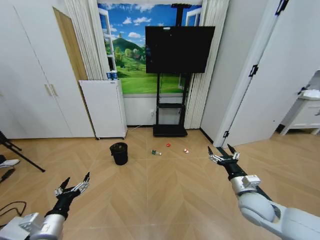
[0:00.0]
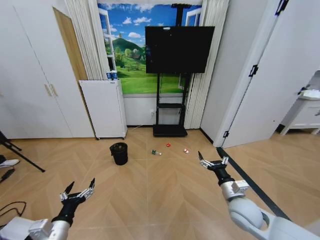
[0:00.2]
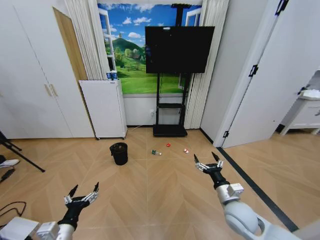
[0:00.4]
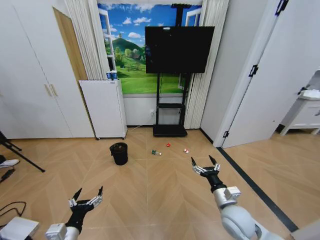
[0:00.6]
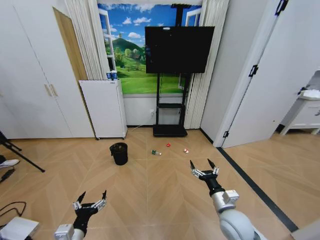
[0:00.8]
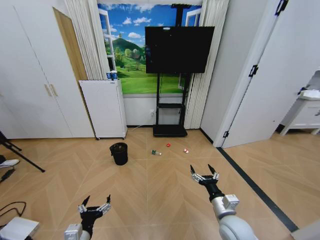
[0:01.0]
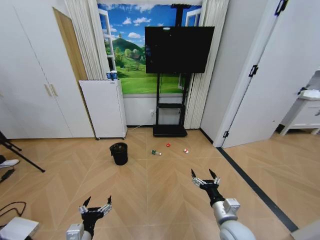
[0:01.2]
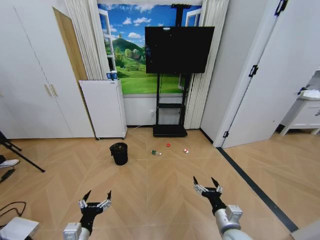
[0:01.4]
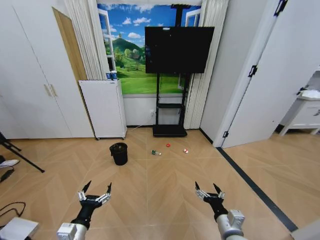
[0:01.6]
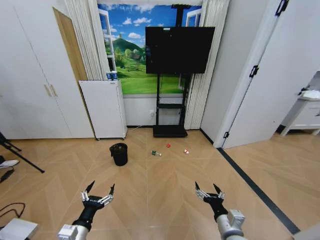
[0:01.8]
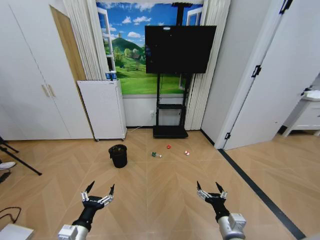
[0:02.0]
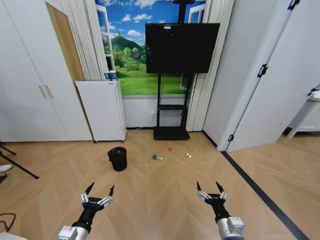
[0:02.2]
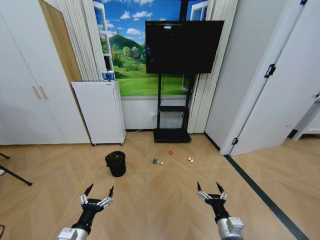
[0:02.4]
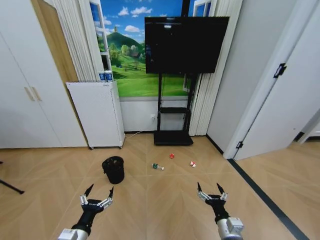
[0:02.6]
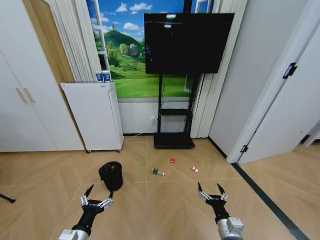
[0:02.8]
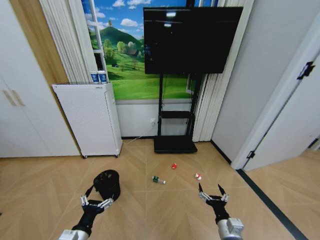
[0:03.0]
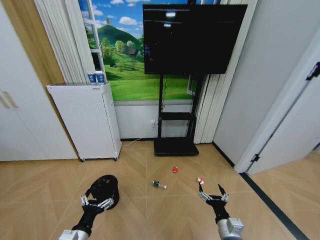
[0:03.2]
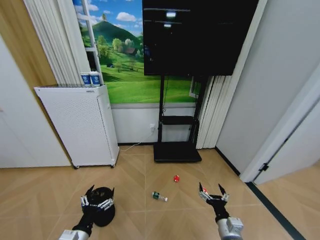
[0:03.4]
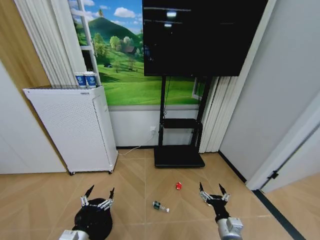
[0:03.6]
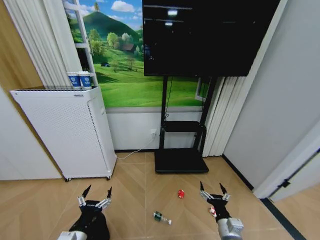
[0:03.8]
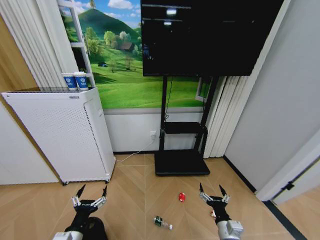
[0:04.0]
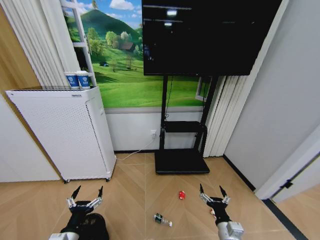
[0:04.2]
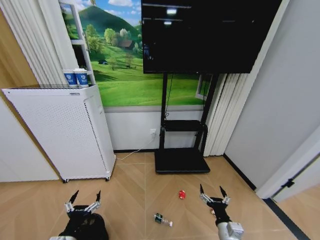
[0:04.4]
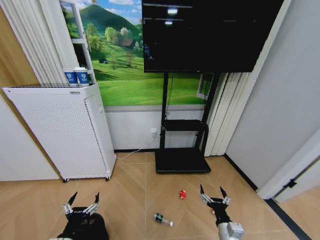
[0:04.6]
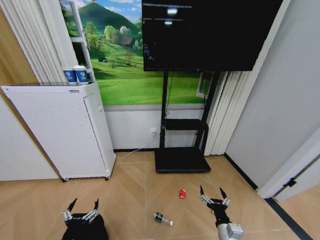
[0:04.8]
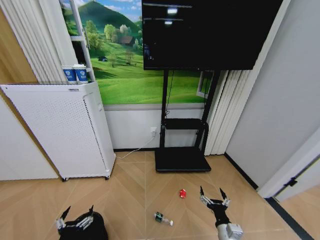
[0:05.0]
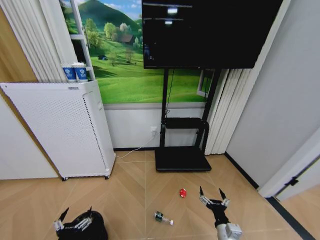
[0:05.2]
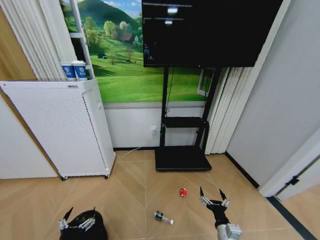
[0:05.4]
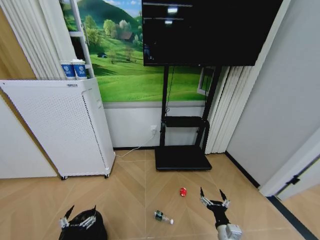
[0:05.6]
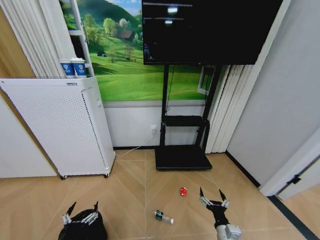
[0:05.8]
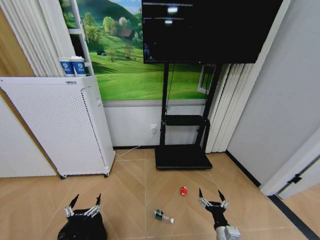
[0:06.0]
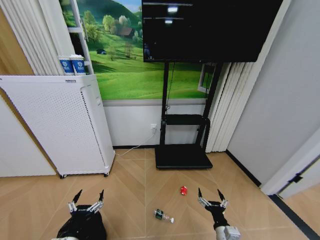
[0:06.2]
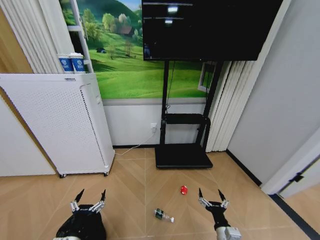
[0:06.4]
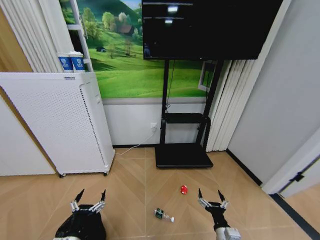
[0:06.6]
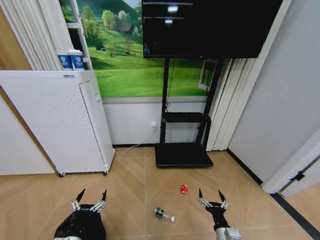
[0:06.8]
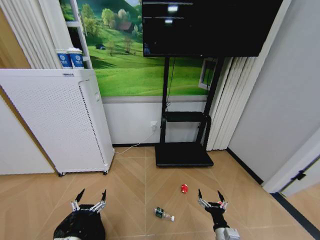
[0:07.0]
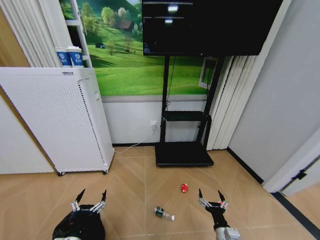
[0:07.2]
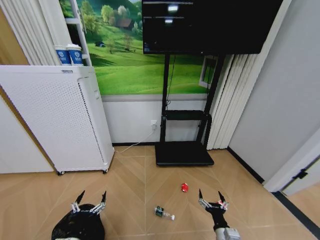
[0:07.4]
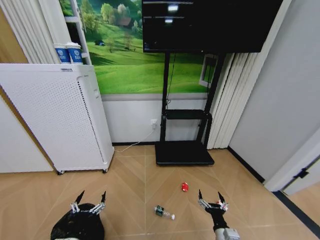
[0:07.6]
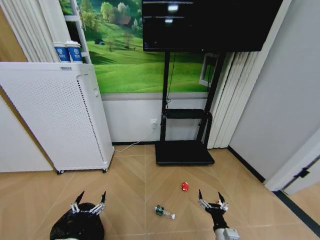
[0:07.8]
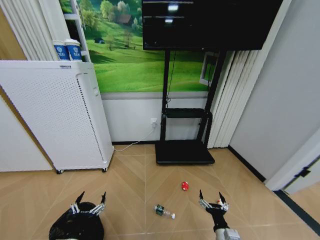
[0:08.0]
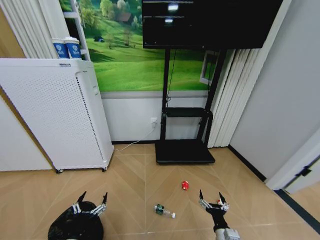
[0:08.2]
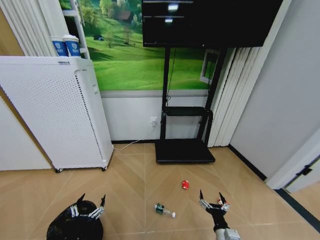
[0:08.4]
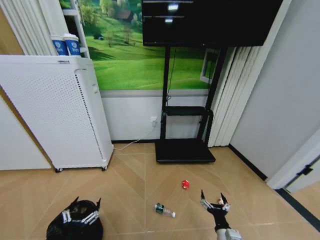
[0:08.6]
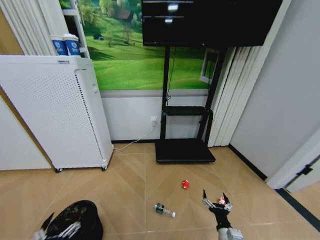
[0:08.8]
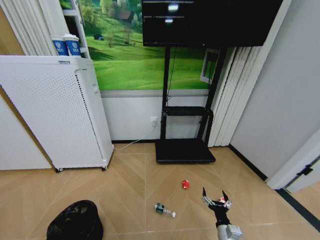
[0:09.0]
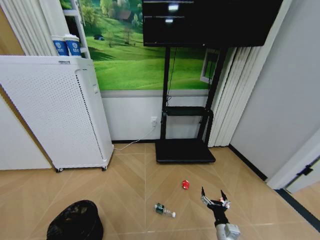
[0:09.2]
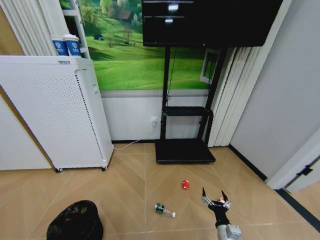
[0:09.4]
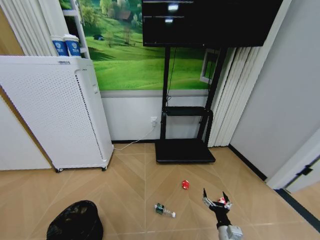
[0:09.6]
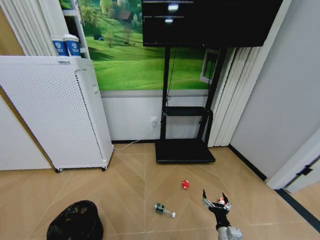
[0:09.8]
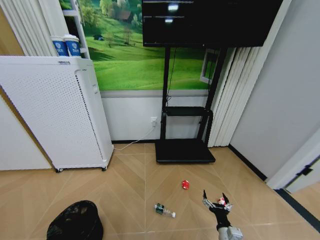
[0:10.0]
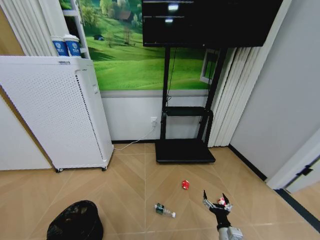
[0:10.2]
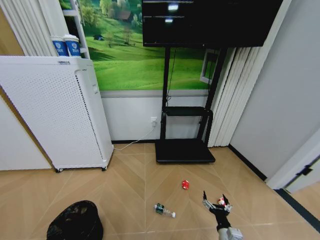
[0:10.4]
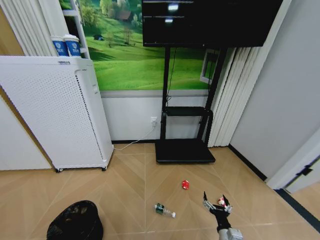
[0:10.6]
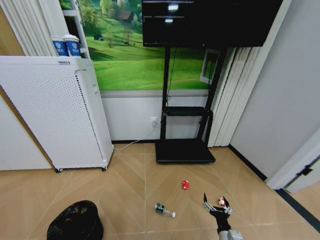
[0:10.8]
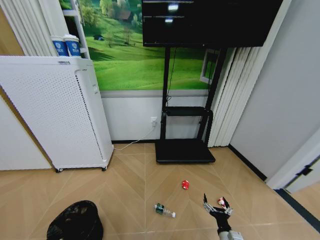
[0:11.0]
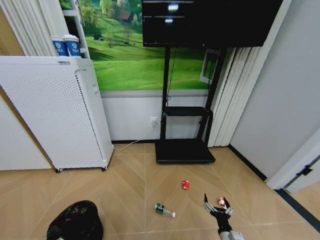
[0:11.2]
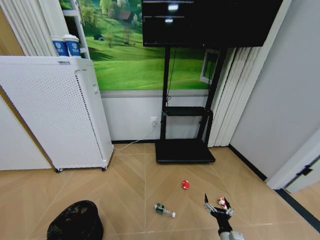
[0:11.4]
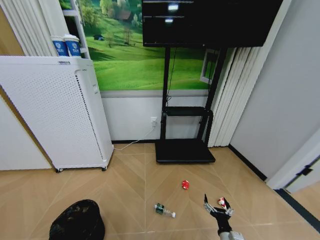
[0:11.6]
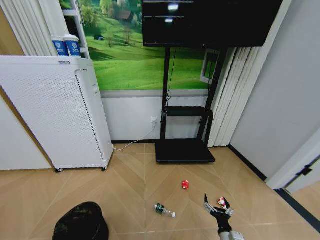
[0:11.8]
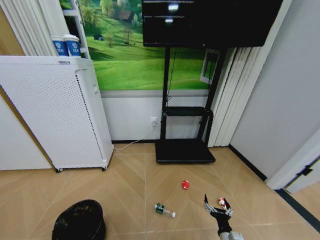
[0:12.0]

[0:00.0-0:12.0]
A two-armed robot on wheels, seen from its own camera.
Task of the whole recording: Pick up the trash bin and place the garbage on the floor into it.
0:06.0 to 0:07.6: There are only small adjustments of the grippers.
0:07.6 to 0:09.0: The left gripper heads backward and to the left, covering some 15 cm.
0:10.4 to 0:12.0: The left gripper closes its fingers.

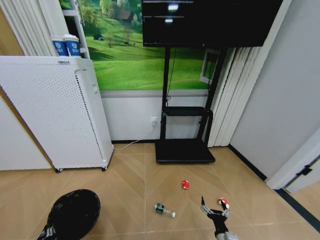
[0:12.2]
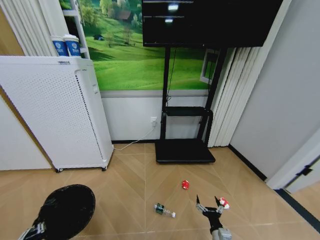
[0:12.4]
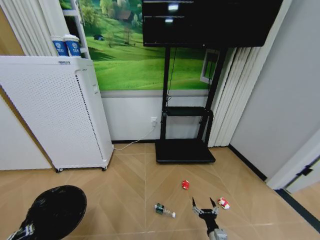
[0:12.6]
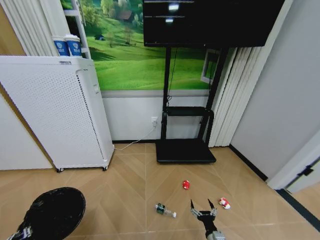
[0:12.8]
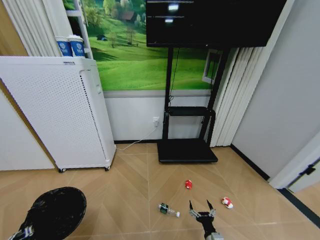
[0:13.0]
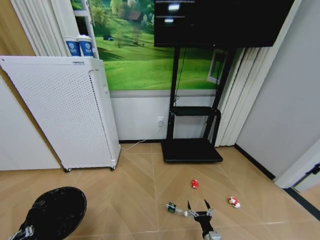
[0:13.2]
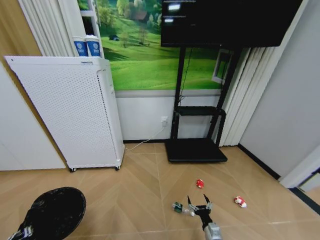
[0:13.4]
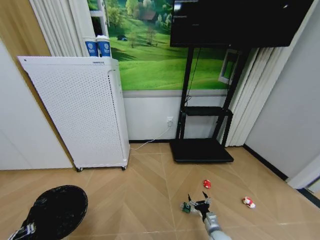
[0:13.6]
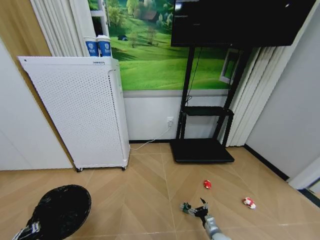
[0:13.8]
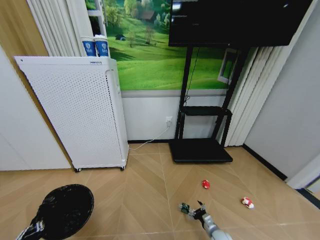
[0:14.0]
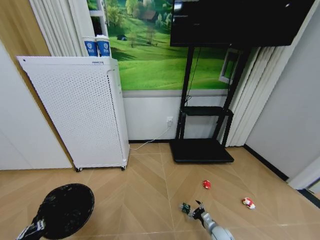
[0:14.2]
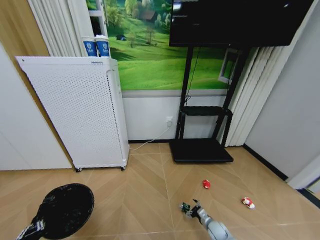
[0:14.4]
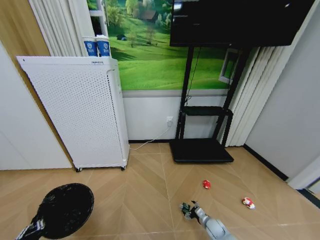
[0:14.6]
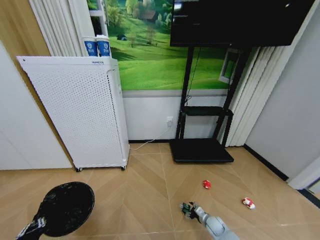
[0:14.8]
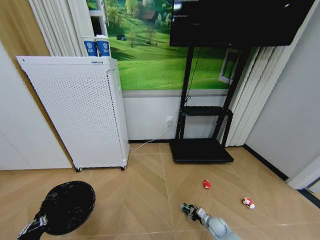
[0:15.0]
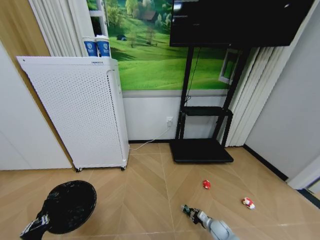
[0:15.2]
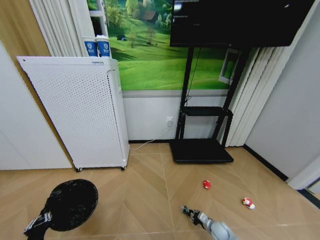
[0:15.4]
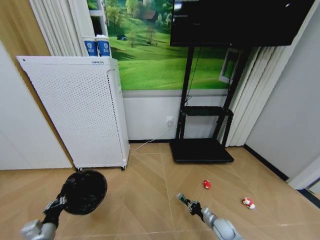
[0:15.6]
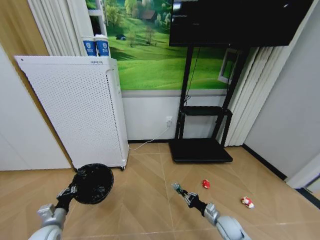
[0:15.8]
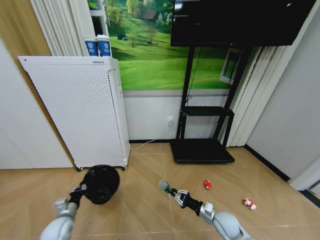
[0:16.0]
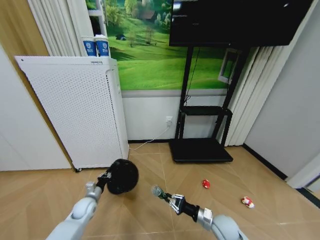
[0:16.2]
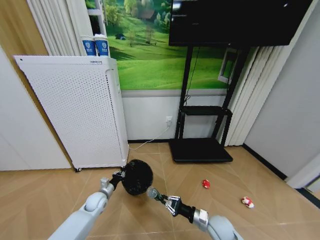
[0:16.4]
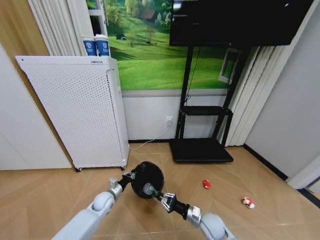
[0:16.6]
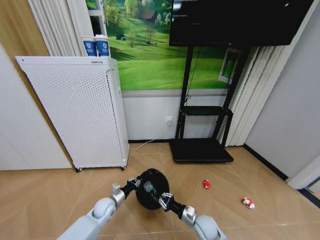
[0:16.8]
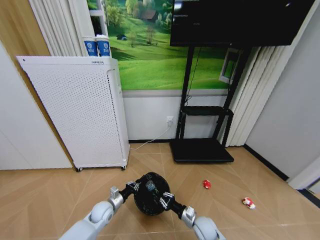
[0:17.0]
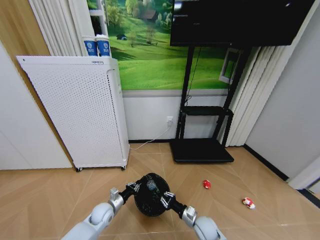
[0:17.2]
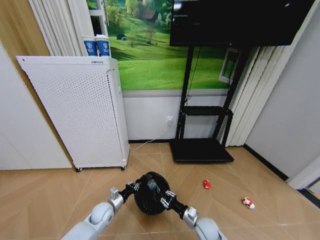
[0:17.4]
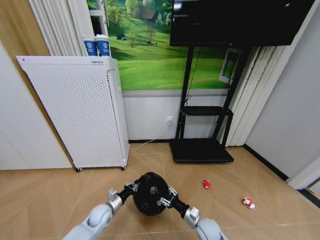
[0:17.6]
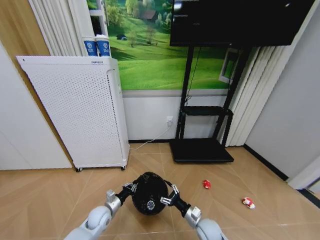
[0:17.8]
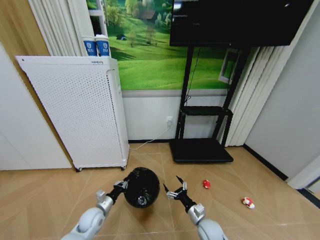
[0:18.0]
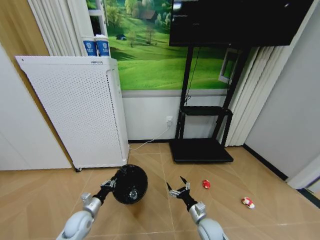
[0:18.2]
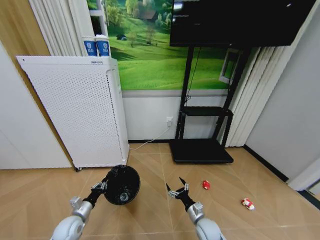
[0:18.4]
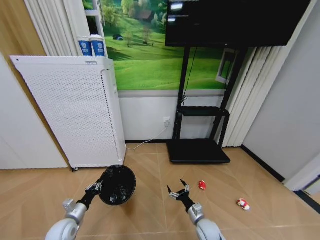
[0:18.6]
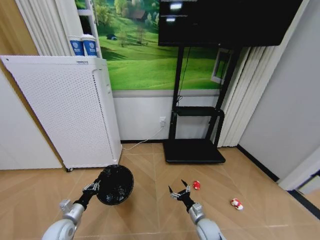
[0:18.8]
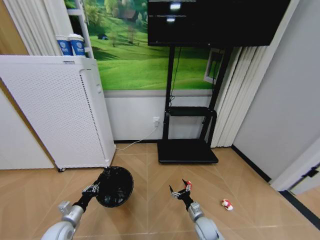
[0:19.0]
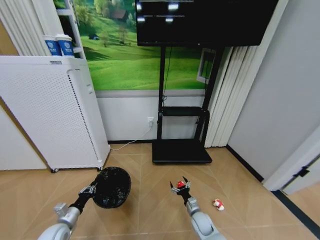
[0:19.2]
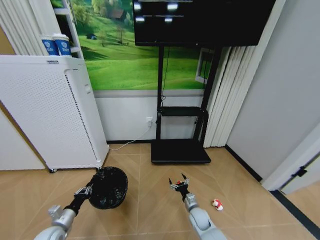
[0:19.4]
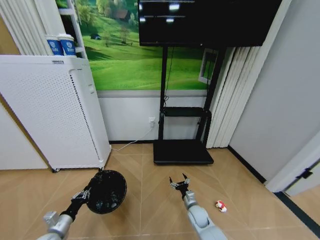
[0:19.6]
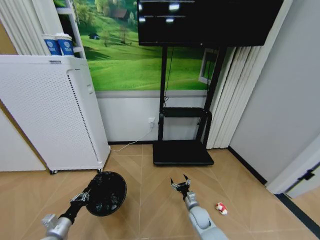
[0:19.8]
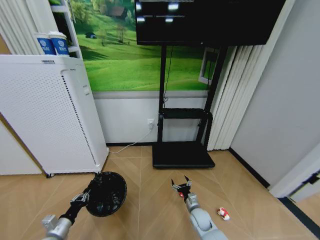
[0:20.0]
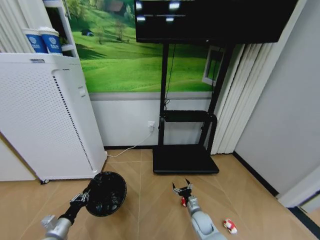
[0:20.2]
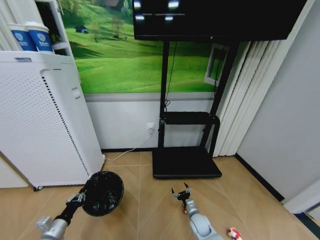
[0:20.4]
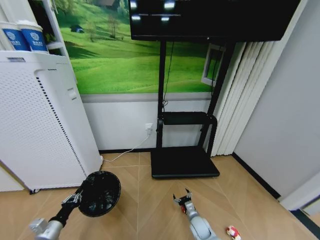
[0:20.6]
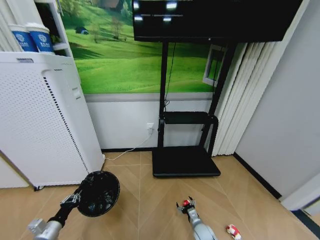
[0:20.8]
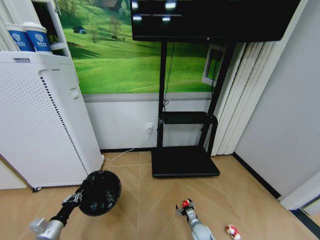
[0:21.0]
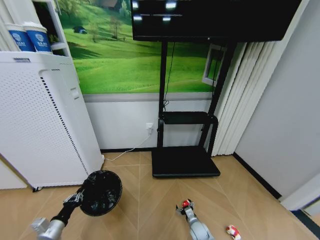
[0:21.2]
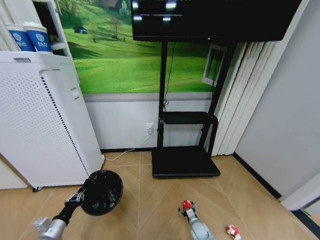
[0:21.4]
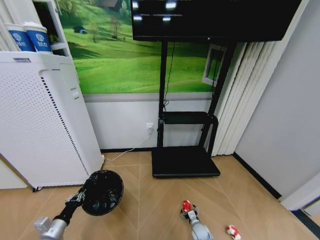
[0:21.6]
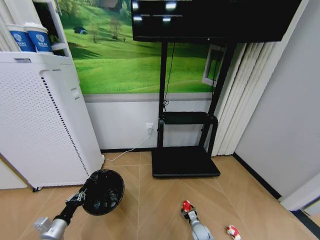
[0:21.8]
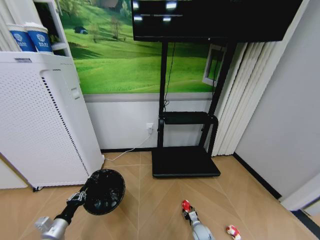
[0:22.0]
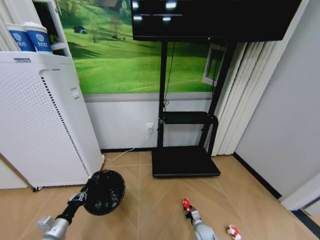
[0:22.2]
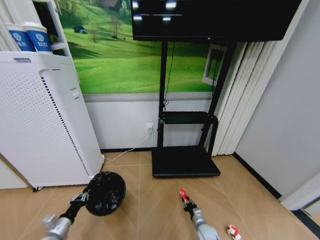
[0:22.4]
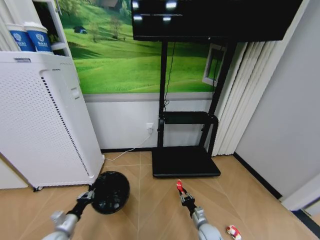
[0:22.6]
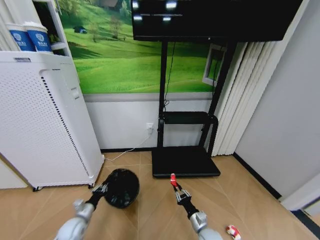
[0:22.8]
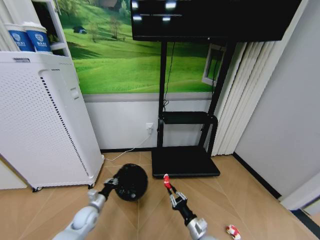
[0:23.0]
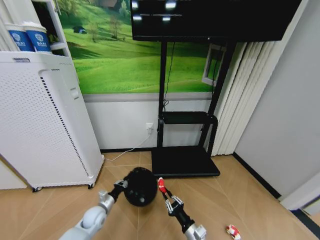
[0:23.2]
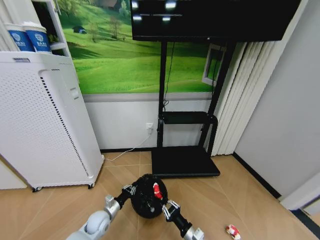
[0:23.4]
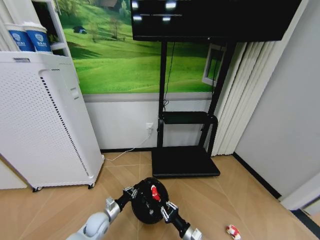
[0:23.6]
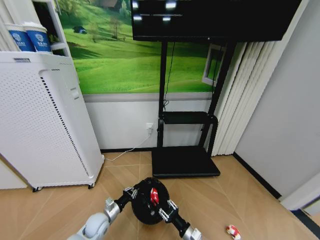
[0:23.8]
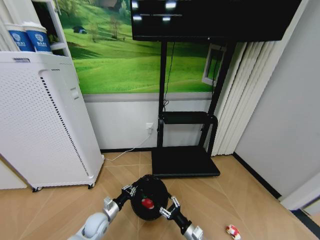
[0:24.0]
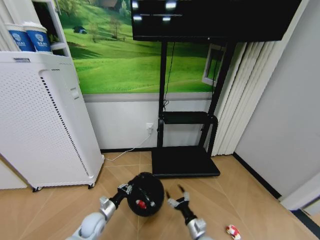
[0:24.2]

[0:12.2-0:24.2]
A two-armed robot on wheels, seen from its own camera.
Task of the whole recording: Pick up the trash bin and place the garbage on the floor into it.
0:12.2 to 0:13.8: The right gripper is displaced forward and downward by some 10 cm.
0:13.8 to 0:15.2: The right gripper goes approximately 5 cm forward, and closes up.
0:15.2 to 0:16.6: The left gripper heads forward and to the right, covering roughly 30 cm. Meanwhile the right gripper moves upward and to the left, approximately 20 cm.
0:16.6 to 0:18.2: The right gripper opens. Meanwhile the left gripper shifts about 10 cm backward and to the left.
0:18.2 to 0:19.8: The right gripper goes some 5 cm forward. Meanwhile the left gripper travels to the left and backward by approximately 15 cm.
0:19.8 to 0:21.2: The right gripper is displaced downward by approximately 10 cm.
0:21.2 to 0:22.6: The right gripper travels upward by approximately 5 cm, and closes its fingers; the left gripper ends up some 5 cm from where it was.
0:22.6 to 0:24.2: The left gripper shifts roughly 15 cm to the right and forward, while the right gripper opens.
